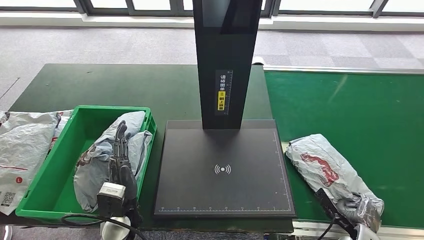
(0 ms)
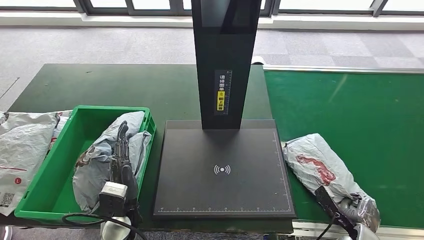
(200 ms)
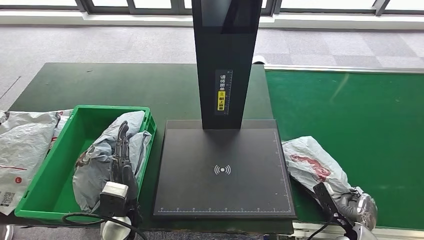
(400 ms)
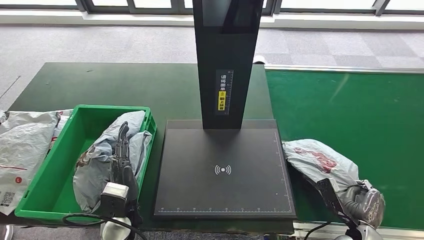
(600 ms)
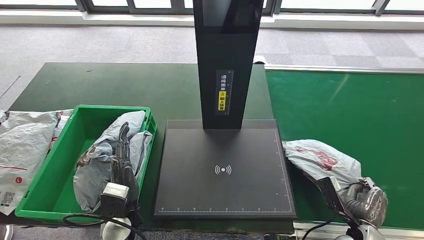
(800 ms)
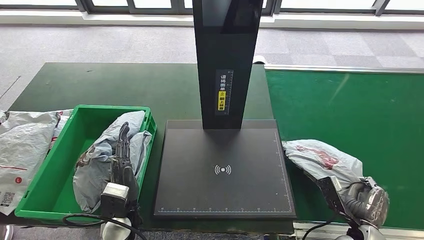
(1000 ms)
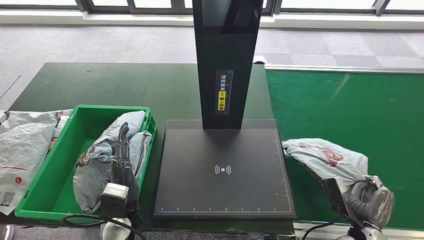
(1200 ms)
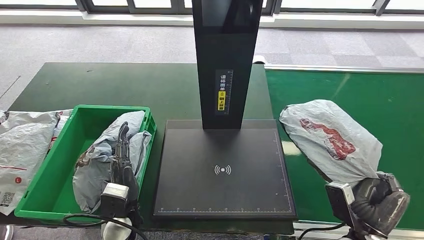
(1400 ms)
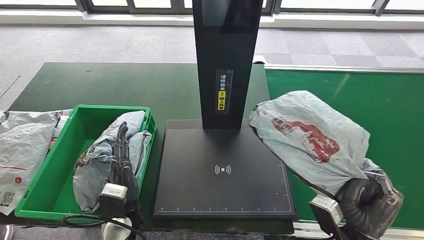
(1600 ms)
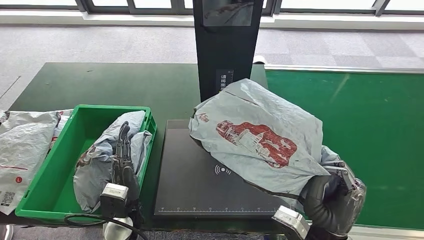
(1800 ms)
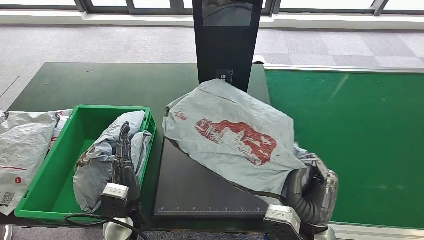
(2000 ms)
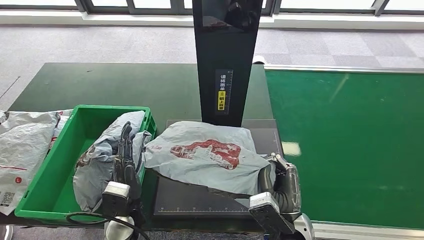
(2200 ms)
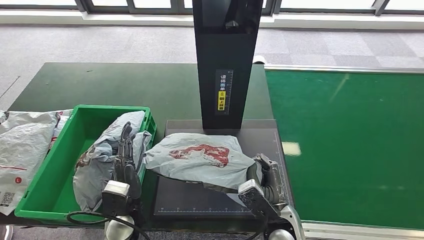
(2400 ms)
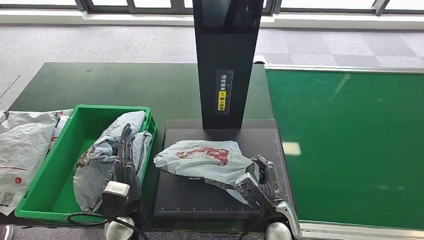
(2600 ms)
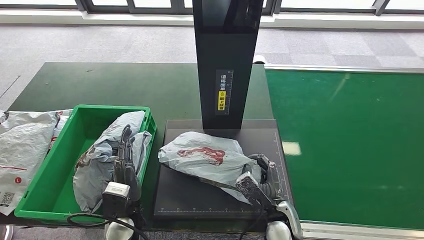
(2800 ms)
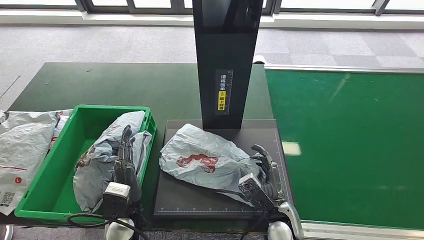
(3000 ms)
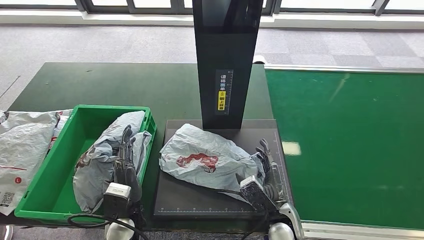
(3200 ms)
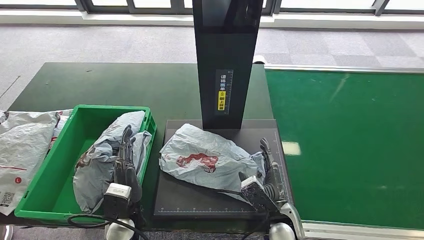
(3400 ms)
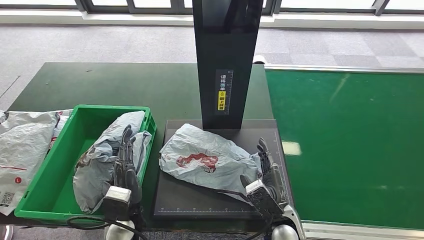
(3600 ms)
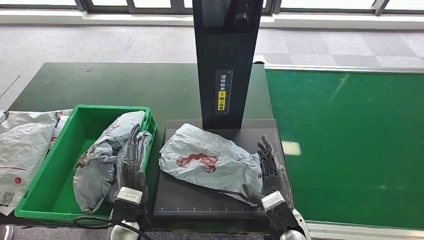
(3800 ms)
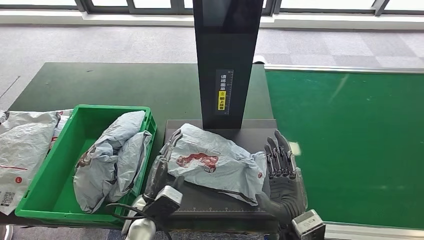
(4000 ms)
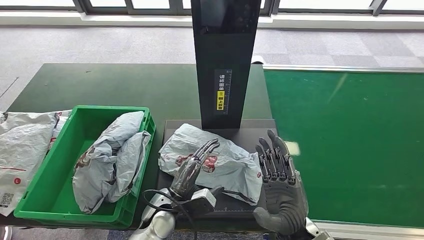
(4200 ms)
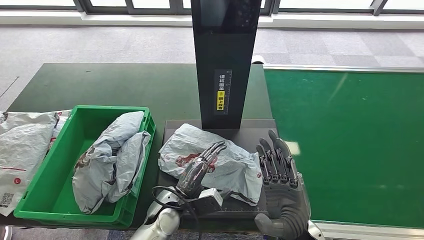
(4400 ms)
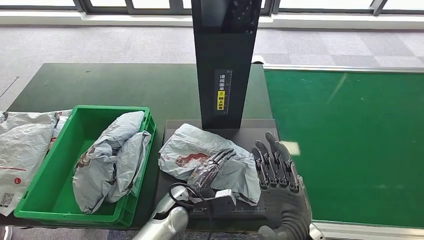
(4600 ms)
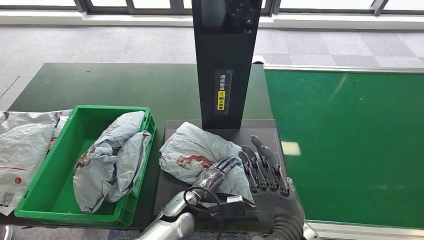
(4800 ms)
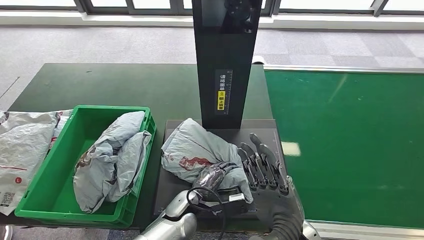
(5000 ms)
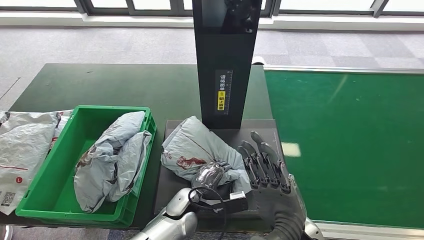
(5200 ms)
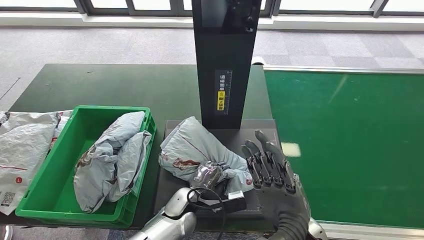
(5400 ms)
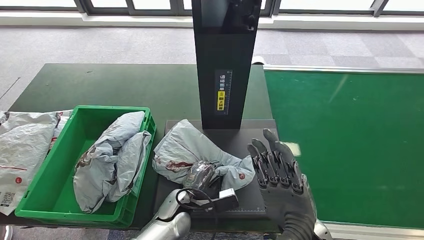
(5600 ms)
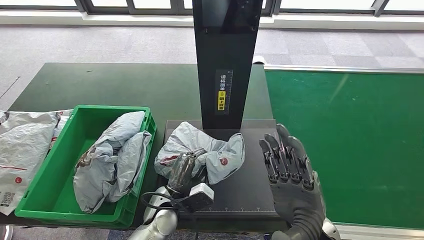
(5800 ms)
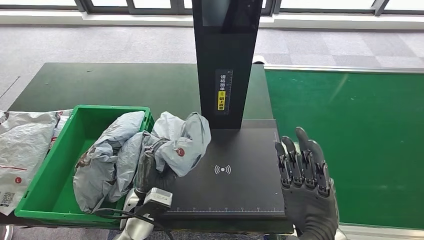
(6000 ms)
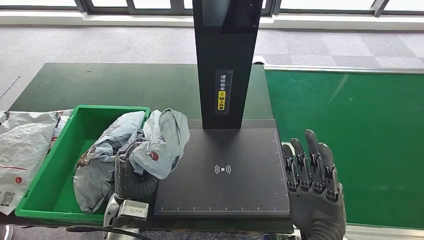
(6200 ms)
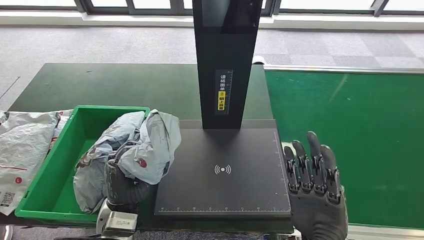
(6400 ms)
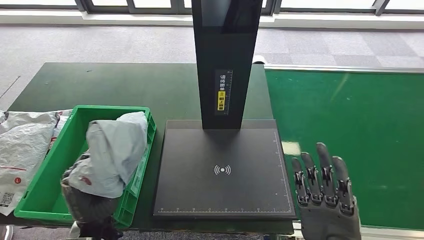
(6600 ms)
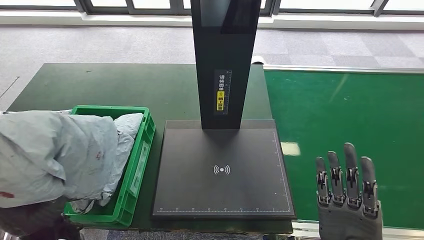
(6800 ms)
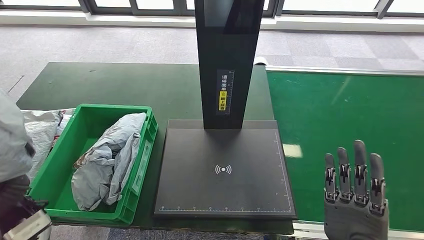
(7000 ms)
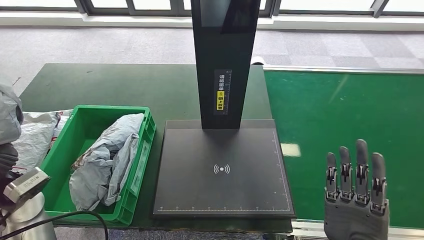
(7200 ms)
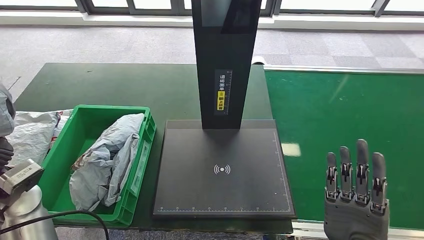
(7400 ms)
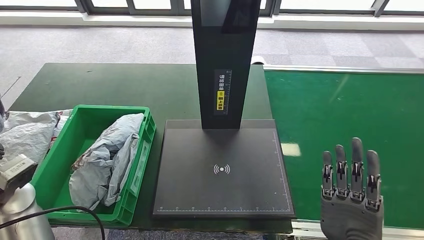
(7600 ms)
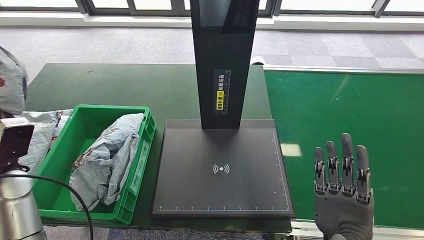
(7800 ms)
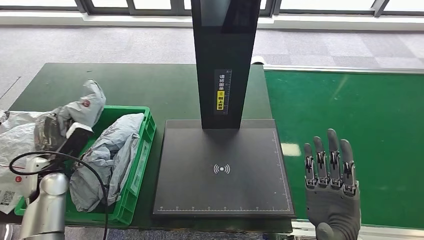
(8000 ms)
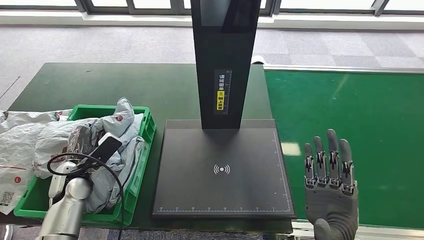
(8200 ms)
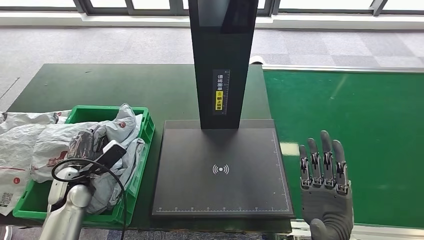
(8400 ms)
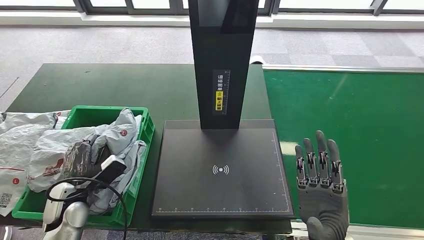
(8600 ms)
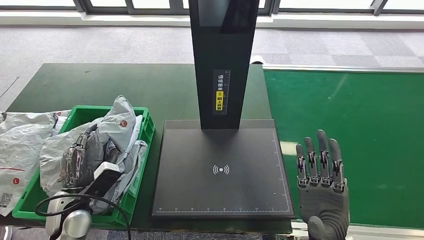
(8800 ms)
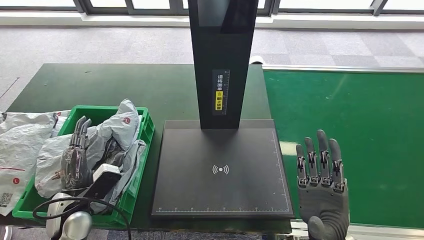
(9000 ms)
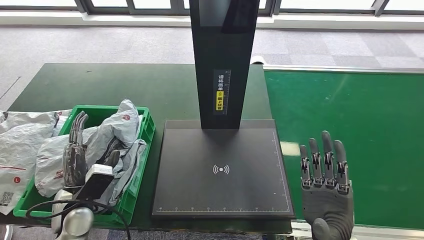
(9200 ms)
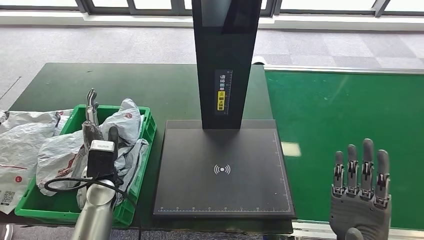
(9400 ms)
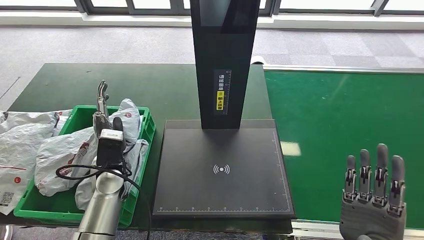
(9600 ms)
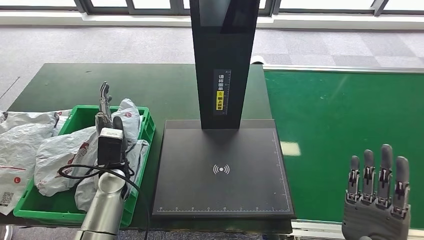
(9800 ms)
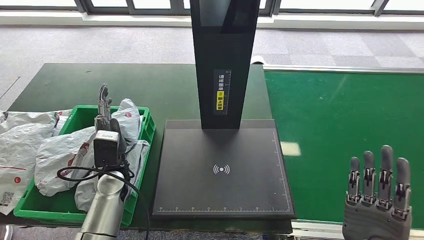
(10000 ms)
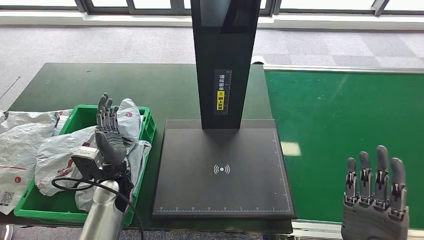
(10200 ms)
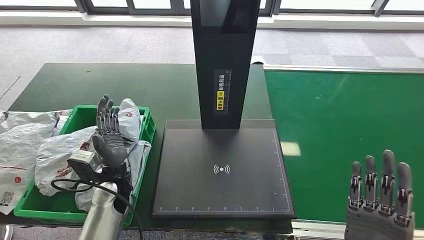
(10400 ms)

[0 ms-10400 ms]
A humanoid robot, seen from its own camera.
Step, 0 ms to 1400 ms: Pick up the parcel from the conveyor belt.
Step, 1800 ms to 4600 ms: Place the parcel onto the inbound machine.
Step, 5000 ms to 7000 ms: Pick up the parcel from the inbound machine.
Step, 7200 ms to 10200 ms: Place the parcel into the delivery box.
1400 ms to 3000 ms: The right hand is displaced to the left by approximately 15 cm.
3000 ms to 4400 ms: The left hand goes about 10 cm to the right, while the right hand heads upward, covering some 10 cm.
4400 ms to 6000 ms: The left hand is displaced to the left by roughly 5 cm.
6000 ms to 7400 ms: The right hand moves approximately 5 cm, while the left hand is displaced to the left and upward by about 25 cm.
9000 ms to 10400 ms: The left hand moves to the right and forward, about 10 cm, while the right hand travels backward and to the right by some 10 cm.
